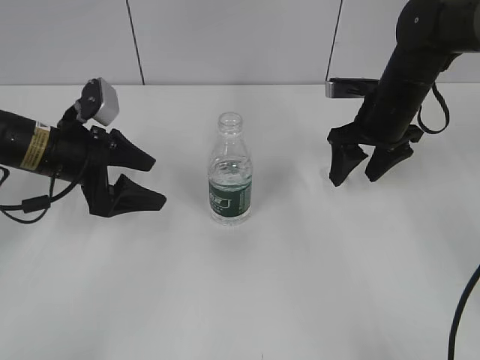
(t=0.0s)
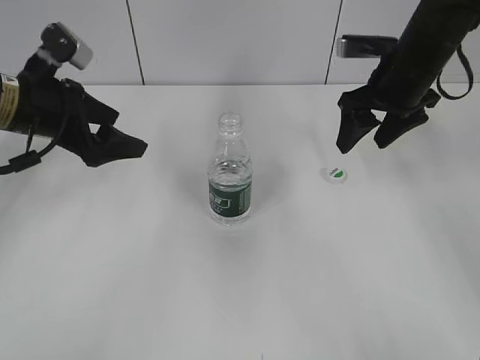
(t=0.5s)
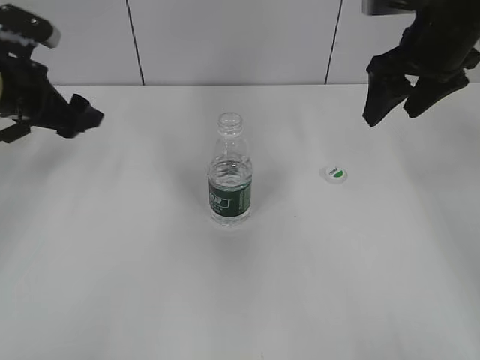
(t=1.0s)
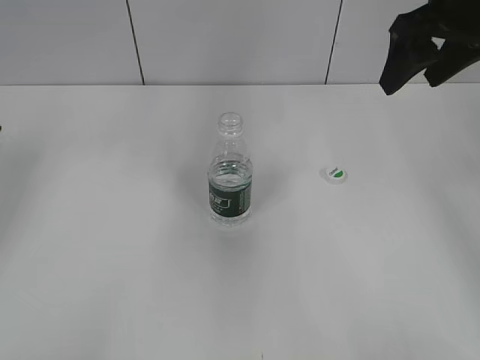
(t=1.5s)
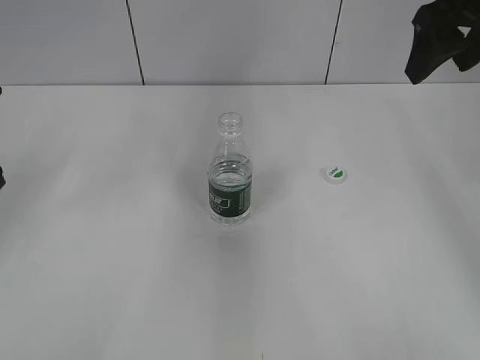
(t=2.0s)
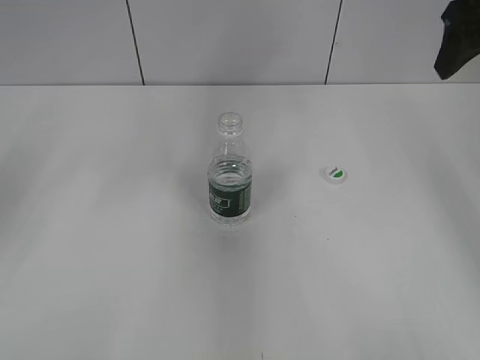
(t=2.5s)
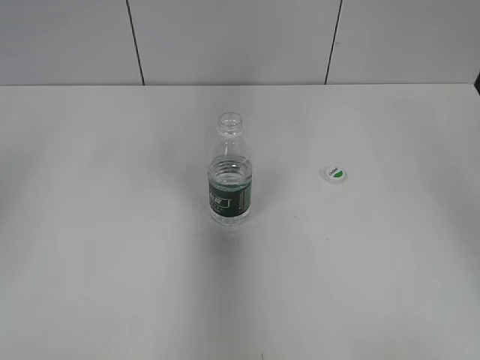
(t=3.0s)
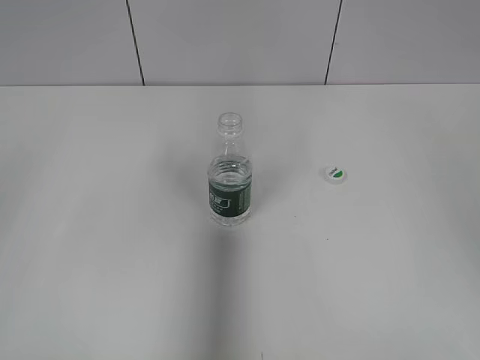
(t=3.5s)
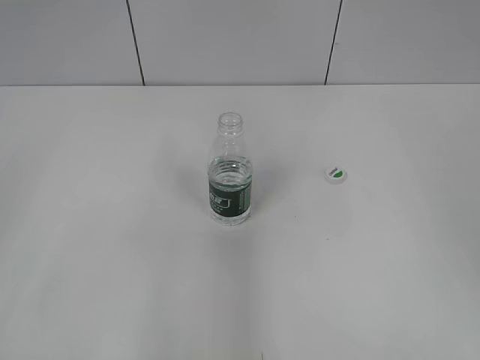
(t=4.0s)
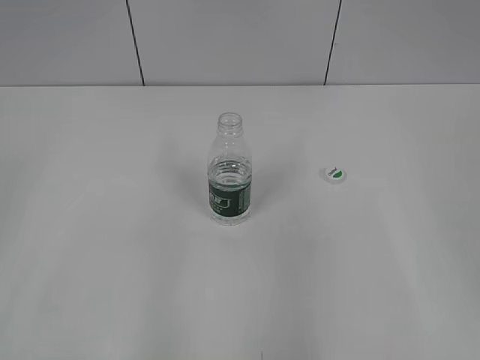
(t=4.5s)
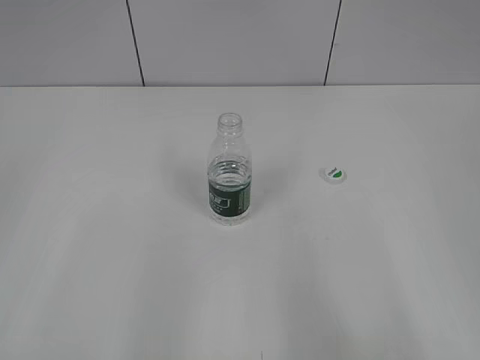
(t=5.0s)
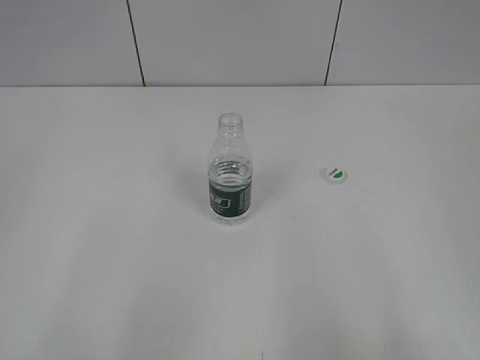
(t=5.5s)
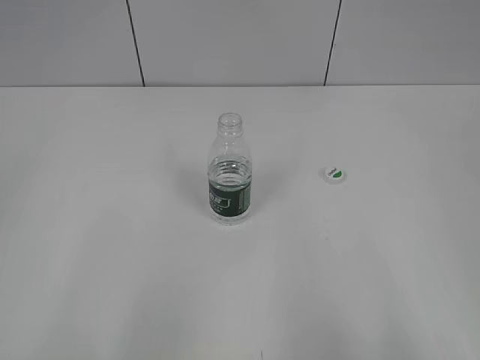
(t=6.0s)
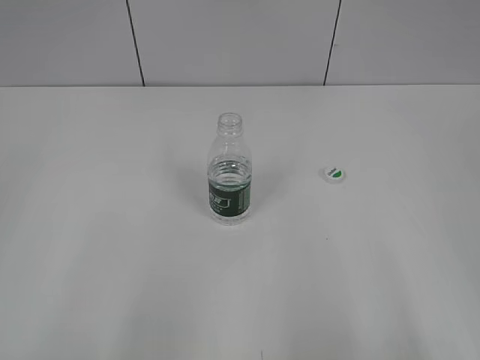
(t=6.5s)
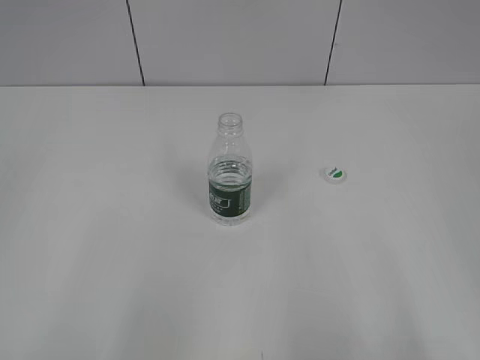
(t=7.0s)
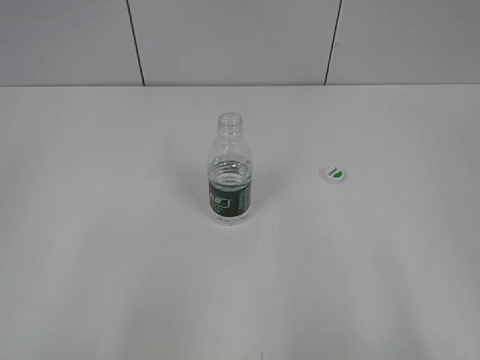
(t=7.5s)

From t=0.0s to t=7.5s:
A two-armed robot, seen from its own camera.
From t=0.0s to t=2.0s: The left gripper goes some 15 cm to the left and upward. Meanwhile the right gripper goes some 20 cm upward.
From t=2.0s to t=4.0s: The two grippers go roughly 20 cm backward.
From t=4.0s to t=5.5s: The right gripper goes approximately 20 cm backward.
